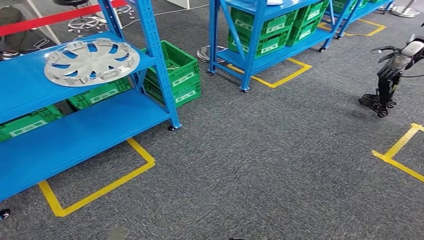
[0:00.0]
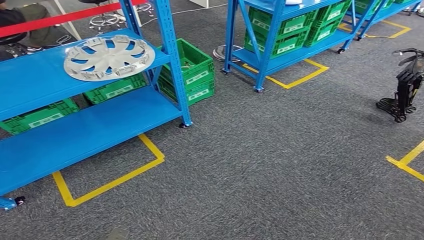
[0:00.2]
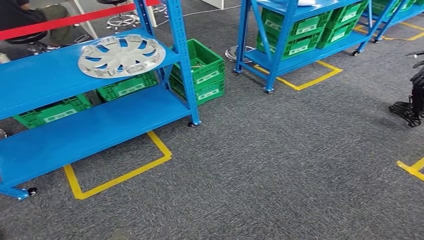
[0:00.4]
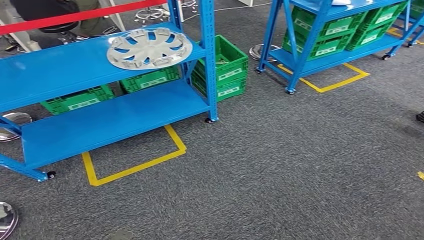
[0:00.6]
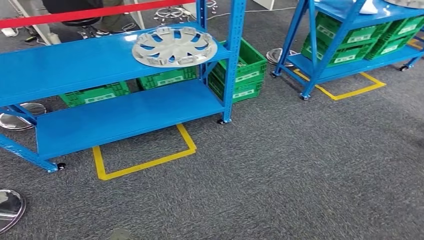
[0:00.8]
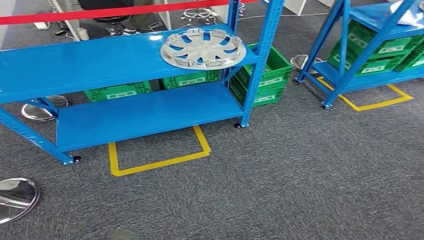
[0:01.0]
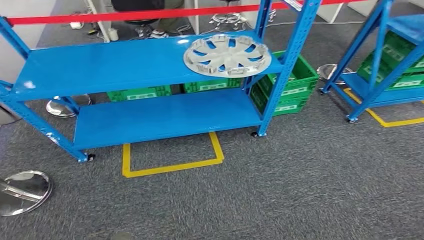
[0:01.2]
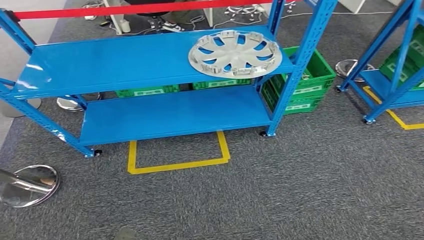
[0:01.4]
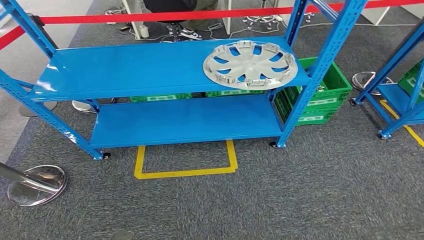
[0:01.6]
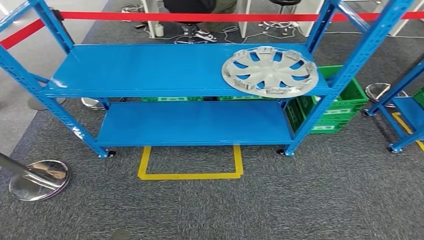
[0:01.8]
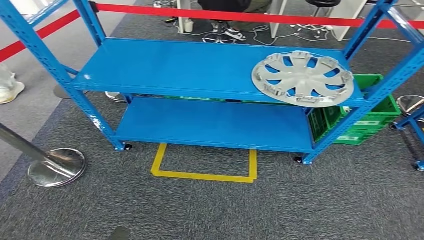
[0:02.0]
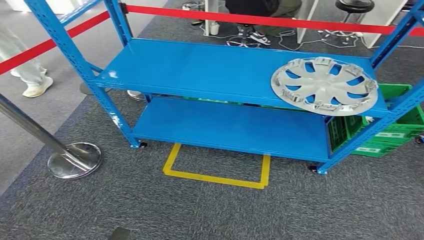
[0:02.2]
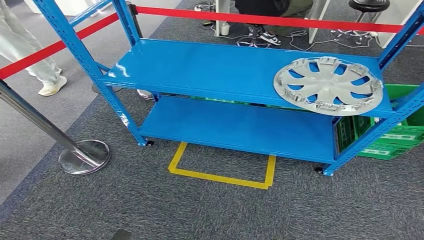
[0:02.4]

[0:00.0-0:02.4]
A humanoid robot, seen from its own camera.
Step, 0:00.0 to 0:02.4: Return to the initial position at the workbench.
